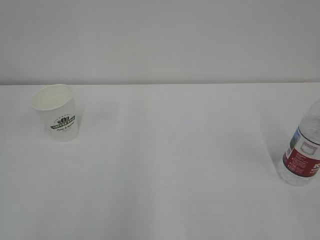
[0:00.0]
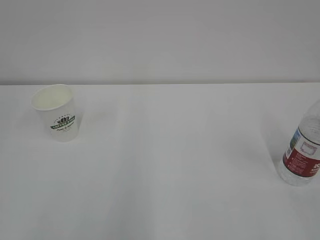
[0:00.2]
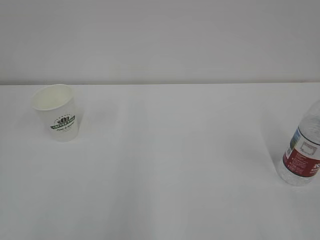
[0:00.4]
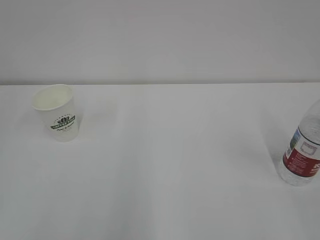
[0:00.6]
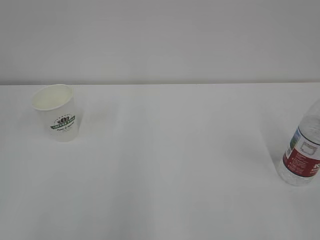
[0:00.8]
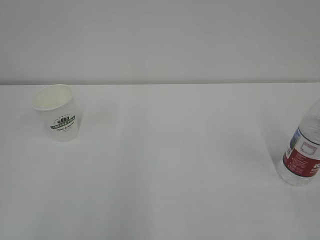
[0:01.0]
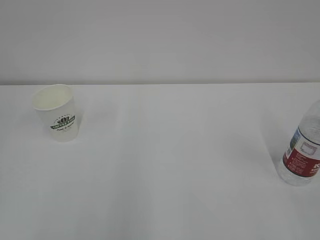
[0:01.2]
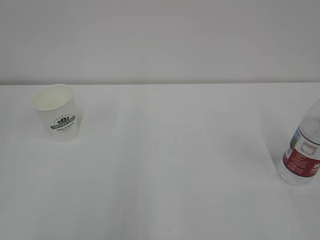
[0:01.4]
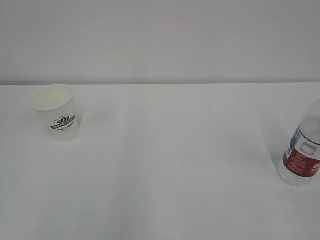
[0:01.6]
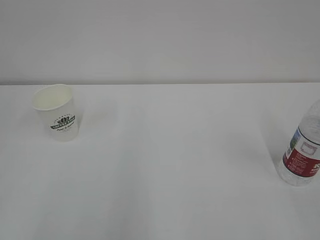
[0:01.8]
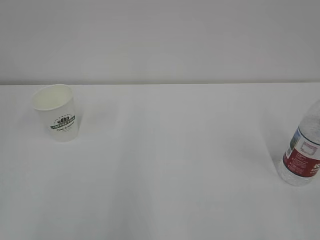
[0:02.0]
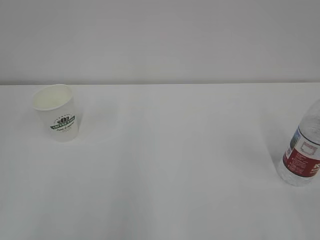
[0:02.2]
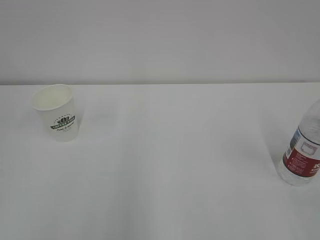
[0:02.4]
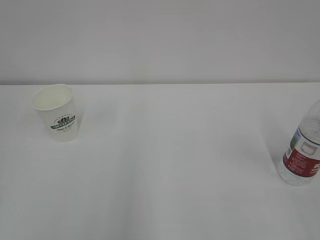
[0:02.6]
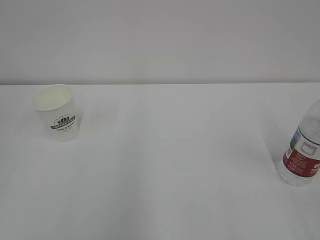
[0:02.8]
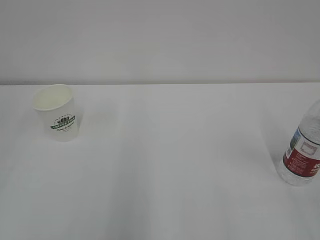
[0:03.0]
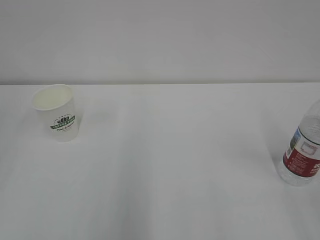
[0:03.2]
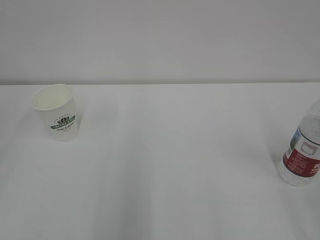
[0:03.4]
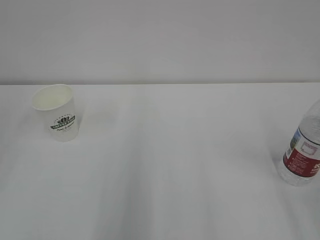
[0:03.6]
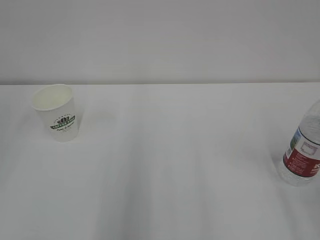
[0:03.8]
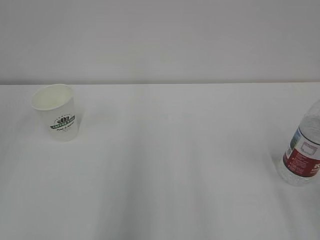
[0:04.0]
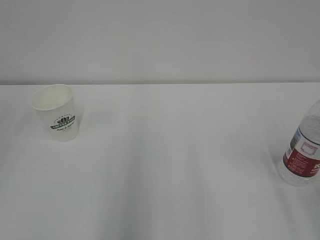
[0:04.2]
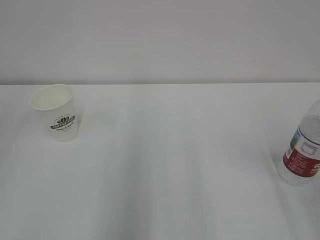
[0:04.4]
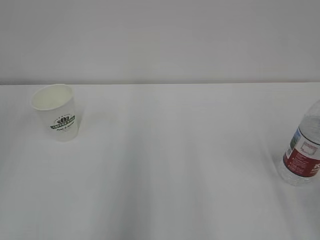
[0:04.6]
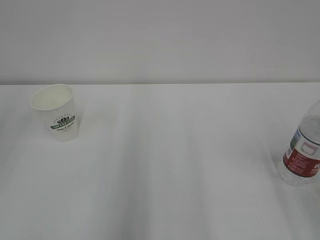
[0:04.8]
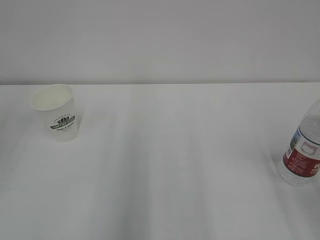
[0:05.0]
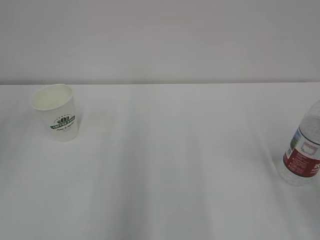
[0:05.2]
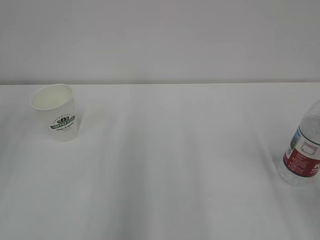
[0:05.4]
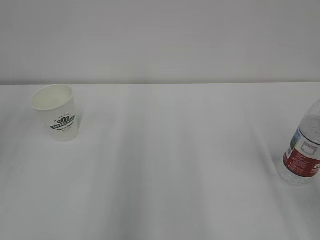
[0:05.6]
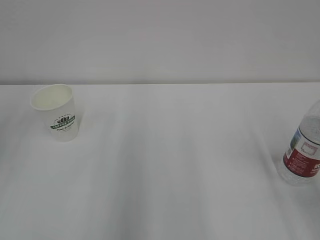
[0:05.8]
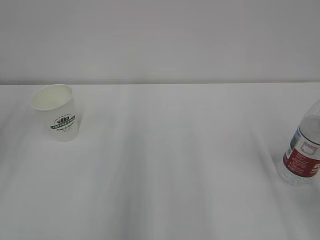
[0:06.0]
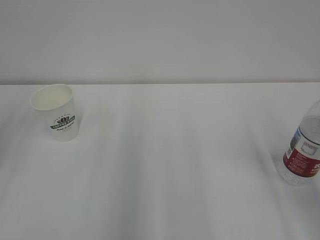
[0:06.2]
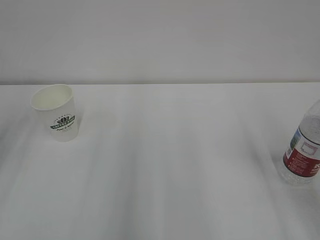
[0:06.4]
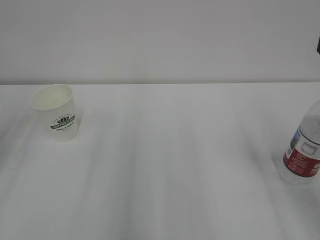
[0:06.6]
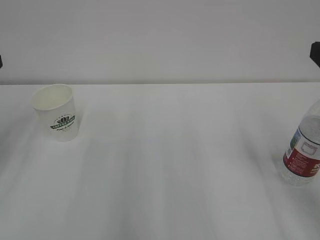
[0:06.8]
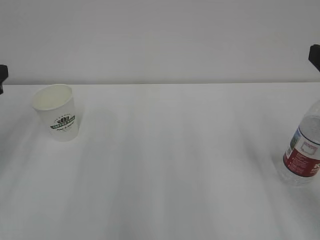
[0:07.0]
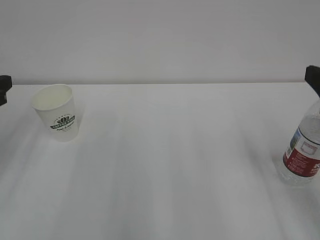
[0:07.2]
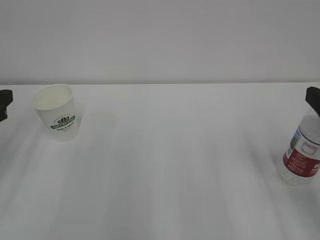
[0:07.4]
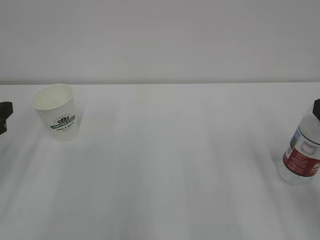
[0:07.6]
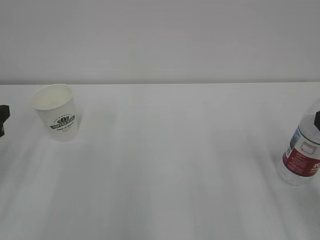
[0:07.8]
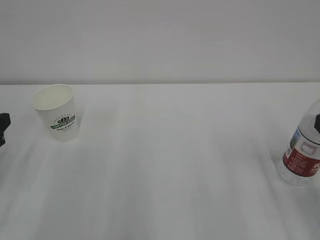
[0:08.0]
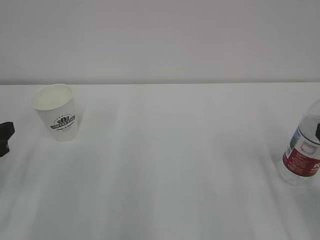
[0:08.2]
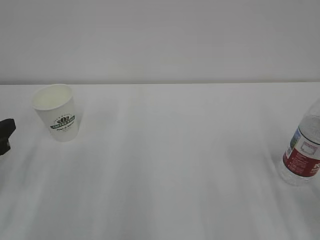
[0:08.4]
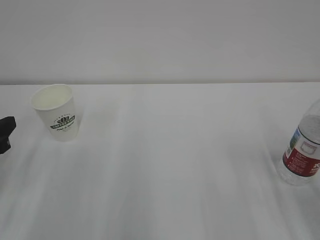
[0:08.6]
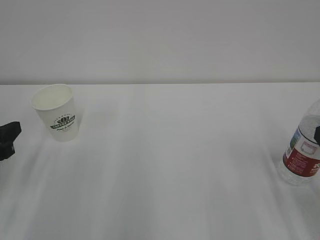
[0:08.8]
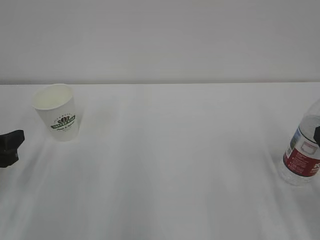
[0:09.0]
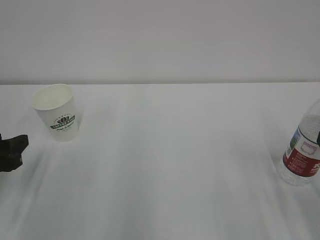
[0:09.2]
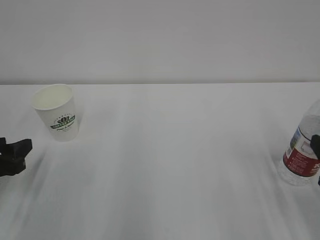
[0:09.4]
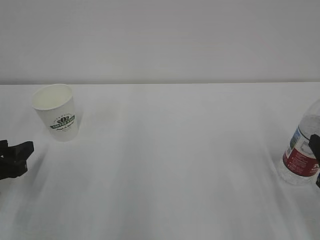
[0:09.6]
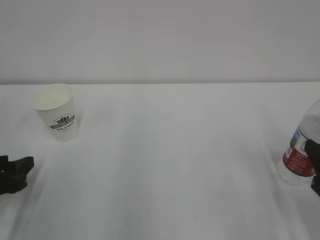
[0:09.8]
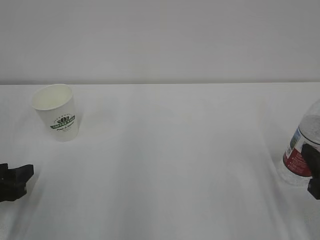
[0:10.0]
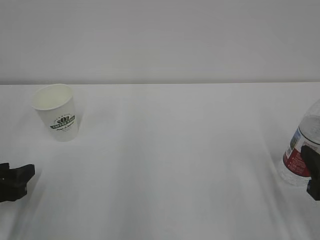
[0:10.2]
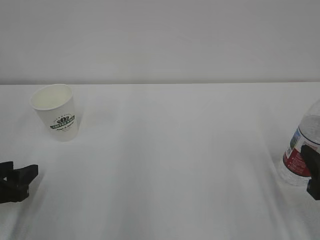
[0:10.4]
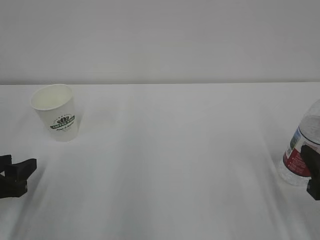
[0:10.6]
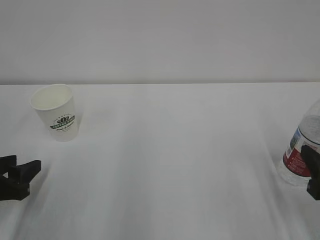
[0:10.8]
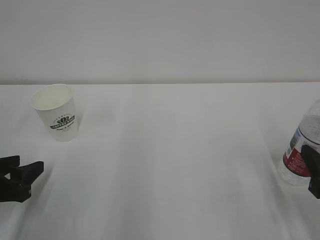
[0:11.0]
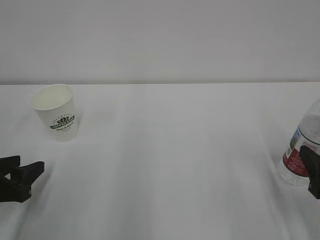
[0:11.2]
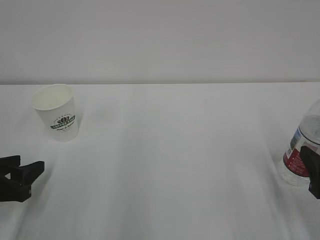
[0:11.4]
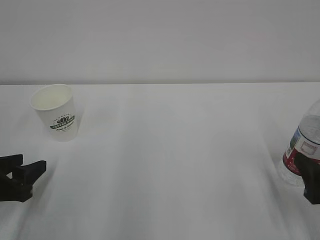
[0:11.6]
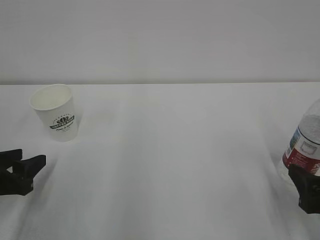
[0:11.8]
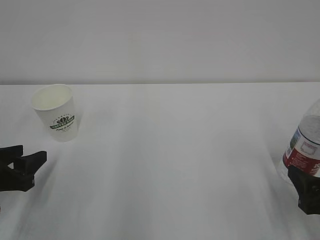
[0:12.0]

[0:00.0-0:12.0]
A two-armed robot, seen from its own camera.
0:07.6 to 0:09.0: The left gripper is displaced downward by some 5 cm.
0:09.0 to 0:10.4: The left gripper ends up approximately 5 cm from where it was. Meanwhile the right gripper heads downward, covering approximately 5 cm.
0:10.4 to 0:12.0: The right gripper opens its fingers.

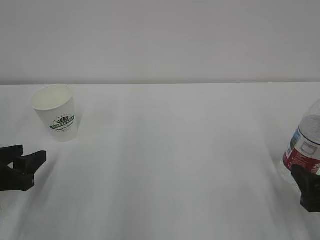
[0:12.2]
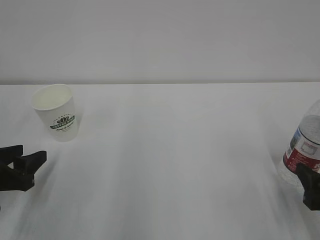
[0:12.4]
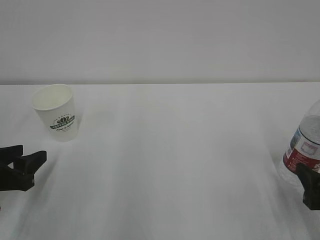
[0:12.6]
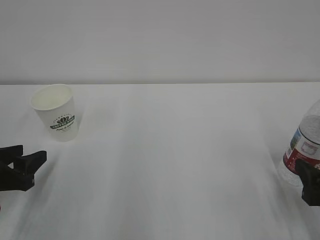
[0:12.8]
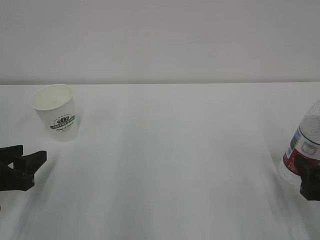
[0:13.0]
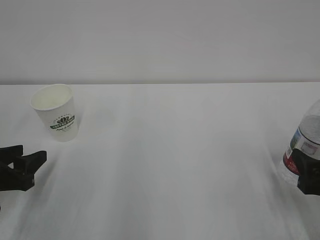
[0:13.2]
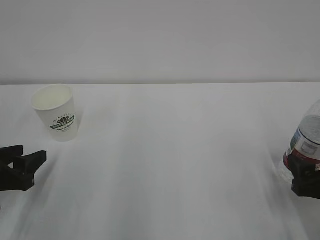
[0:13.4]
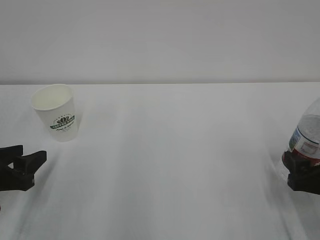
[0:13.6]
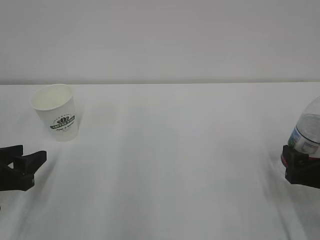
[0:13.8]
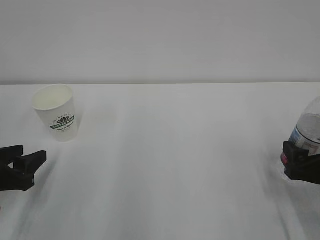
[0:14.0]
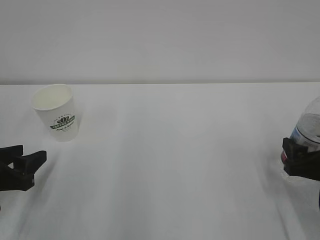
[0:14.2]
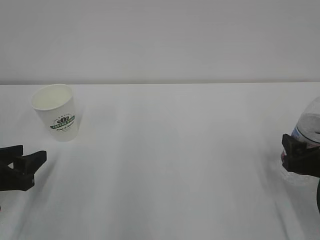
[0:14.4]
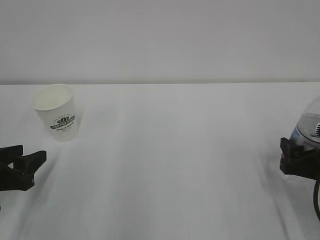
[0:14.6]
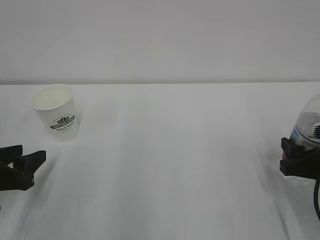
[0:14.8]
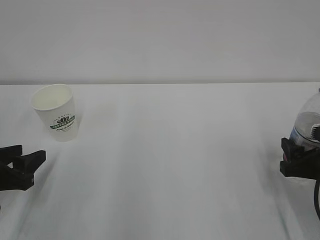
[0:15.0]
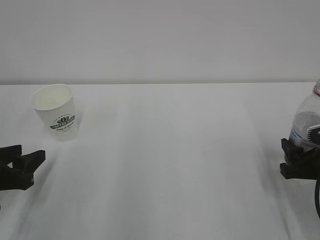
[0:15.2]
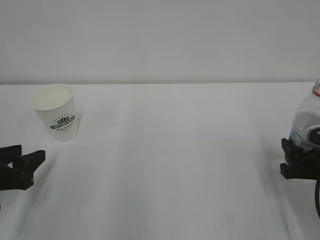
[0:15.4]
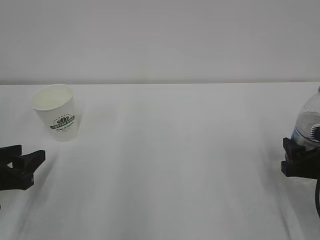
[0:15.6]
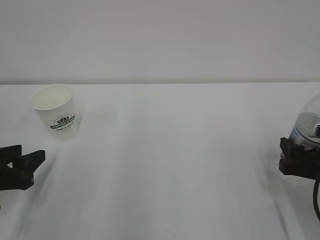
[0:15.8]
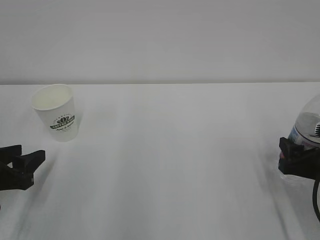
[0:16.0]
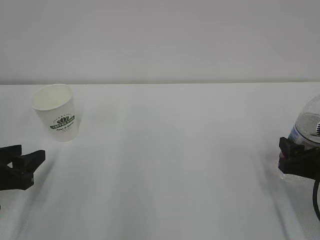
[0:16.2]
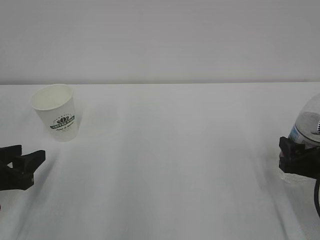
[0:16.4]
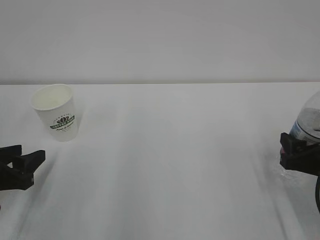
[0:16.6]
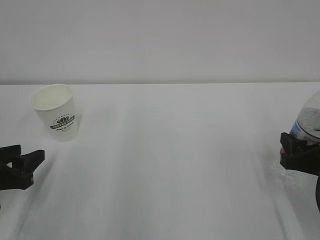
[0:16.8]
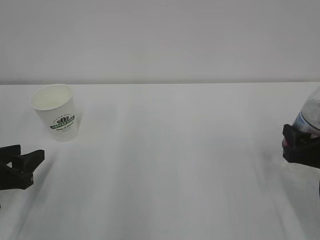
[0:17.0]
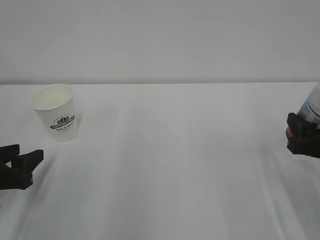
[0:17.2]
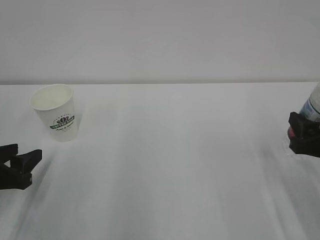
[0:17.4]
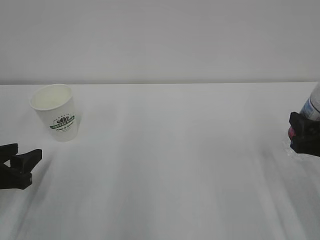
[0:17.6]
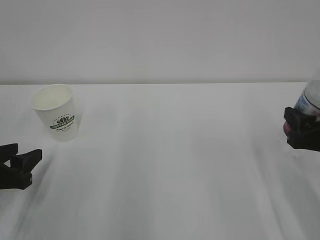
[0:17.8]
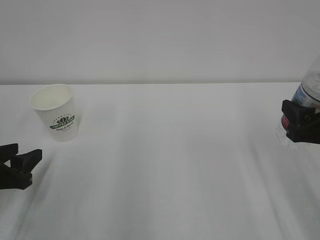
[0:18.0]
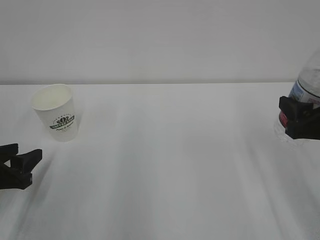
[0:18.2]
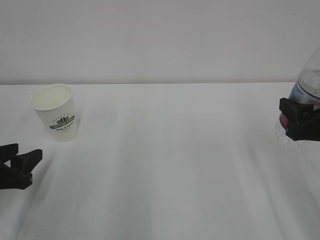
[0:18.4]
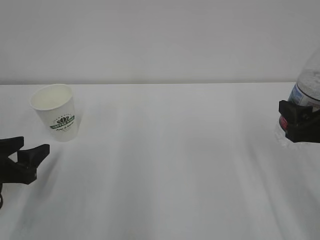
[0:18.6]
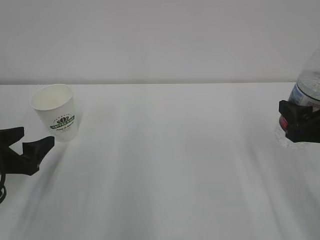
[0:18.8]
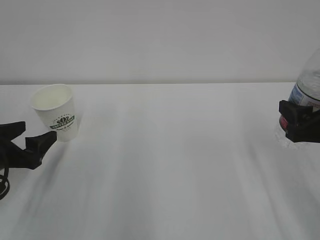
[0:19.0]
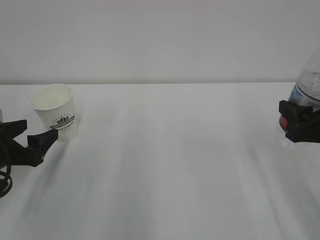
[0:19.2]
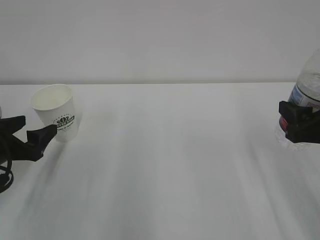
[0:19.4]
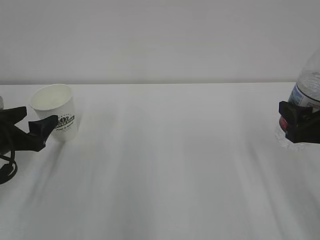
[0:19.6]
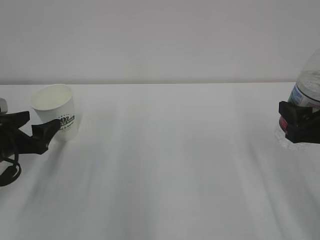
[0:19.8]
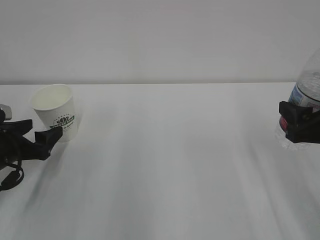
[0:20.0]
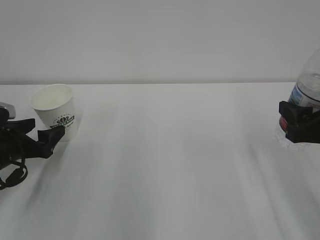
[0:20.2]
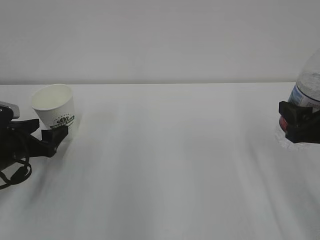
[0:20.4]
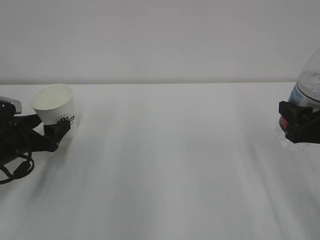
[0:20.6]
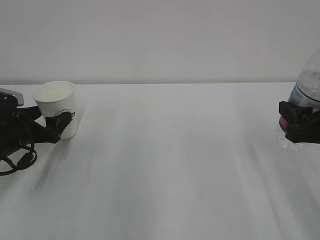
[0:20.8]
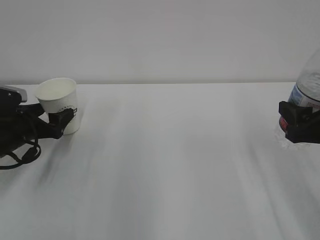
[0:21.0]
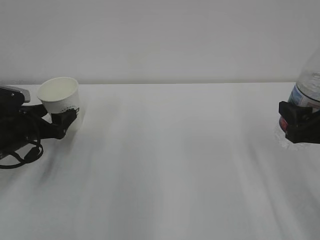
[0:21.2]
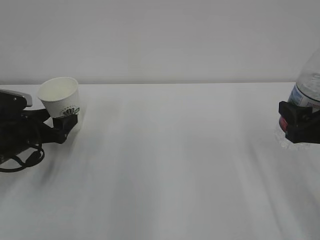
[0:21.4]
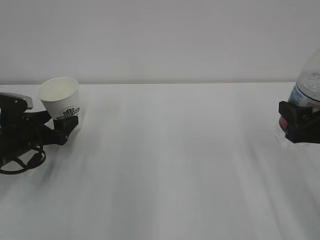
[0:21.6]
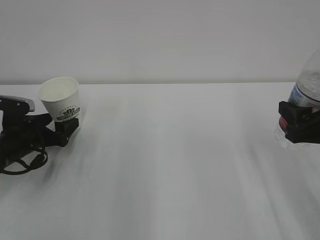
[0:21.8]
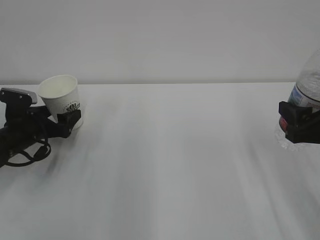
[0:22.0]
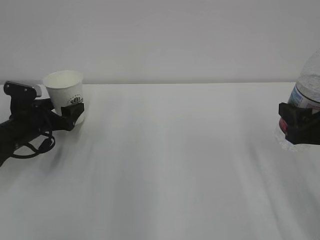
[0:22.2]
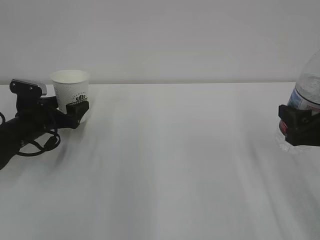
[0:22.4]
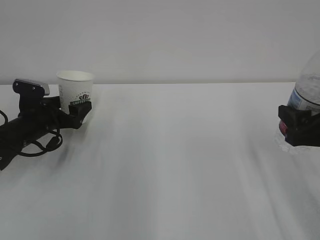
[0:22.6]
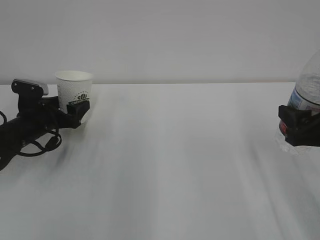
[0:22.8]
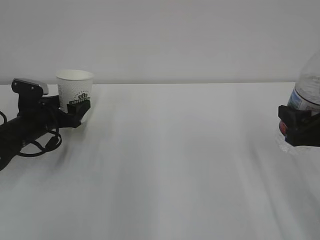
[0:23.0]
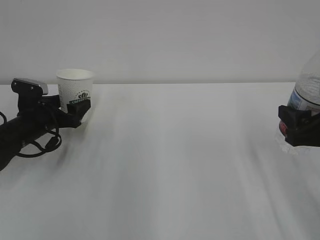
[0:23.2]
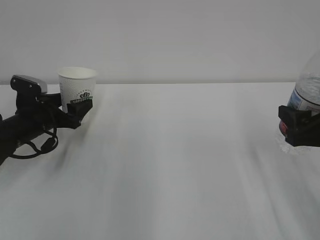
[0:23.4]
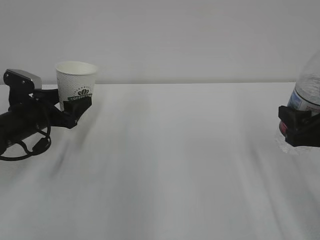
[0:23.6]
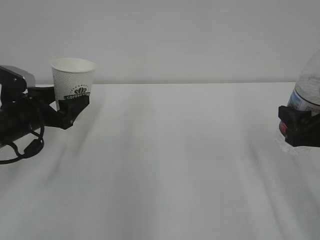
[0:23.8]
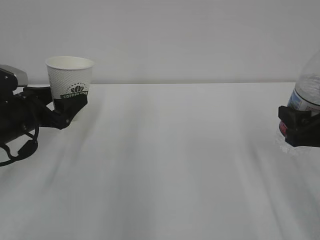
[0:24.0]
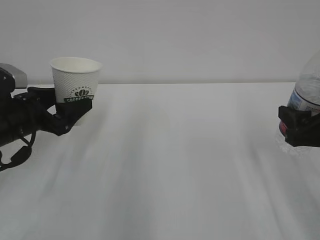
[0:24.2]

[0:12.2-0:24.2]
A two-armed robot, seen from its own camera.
0:12.2 to 0:13.8: There are only small adjustments of the grippers.
0:13.8 to 0:15.2: The right gripper closes.
0:15.2 to 0:16.6: The grippers move only a little.
0:16.6 to 0:18.2: The right gripper is displaced upward by roughly 10 cm.
0:18.2 to 0:19.8: The left gripper moves forward, roughly 5 cm, and opens its fingers.
0:19.8 to 0:21.2: The left gripper travels forward by some 5 cm.
0:21.2 to 0:22.6: There are only small adjustments of the grippers.
0:22.6 to 0:24.2: The left gripper travels backward and upward by about 10 cm.
